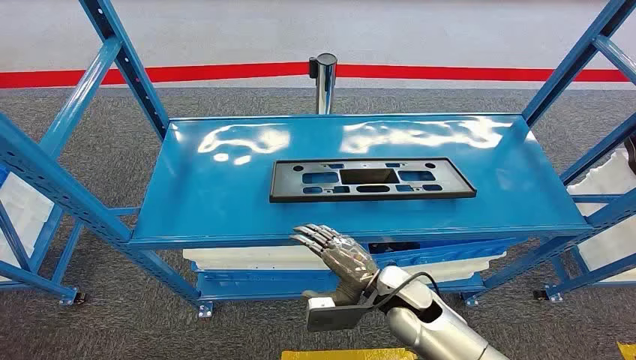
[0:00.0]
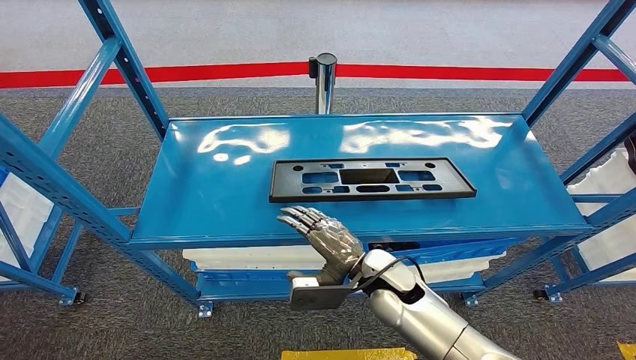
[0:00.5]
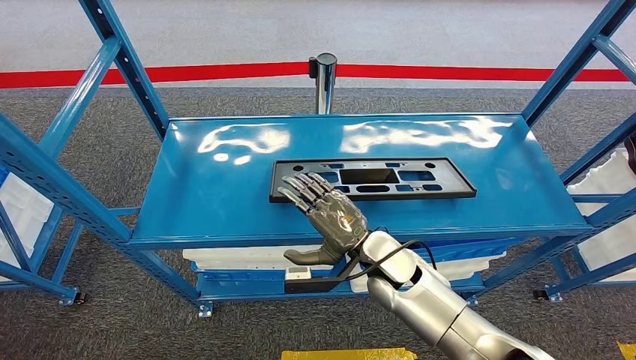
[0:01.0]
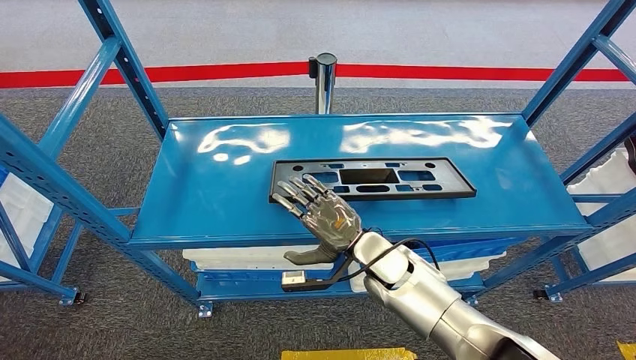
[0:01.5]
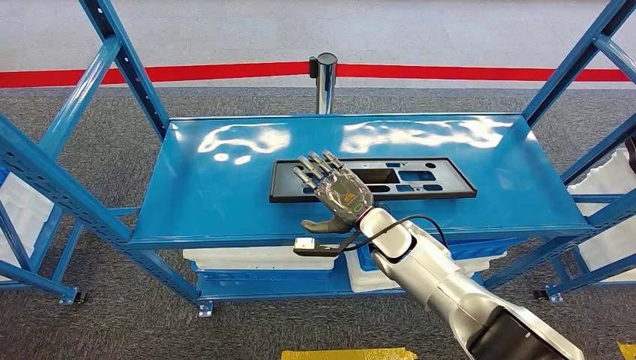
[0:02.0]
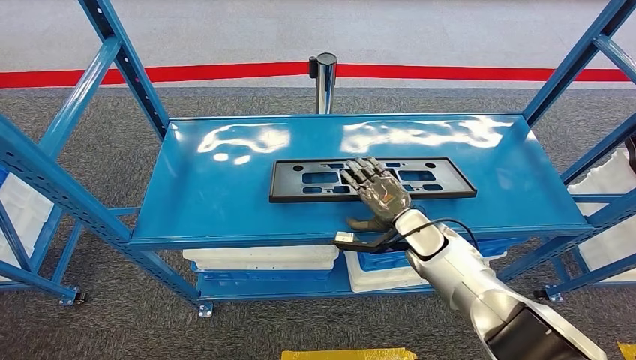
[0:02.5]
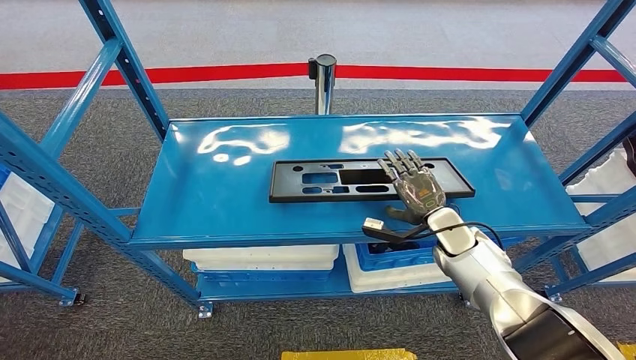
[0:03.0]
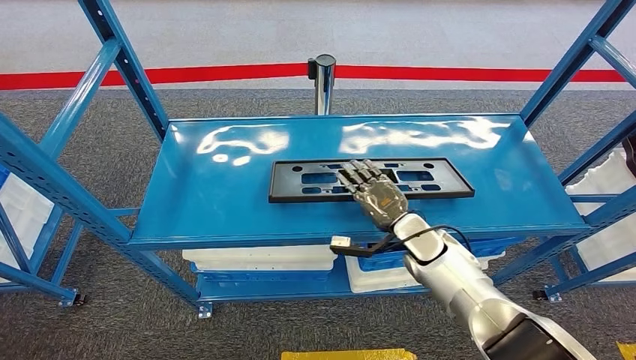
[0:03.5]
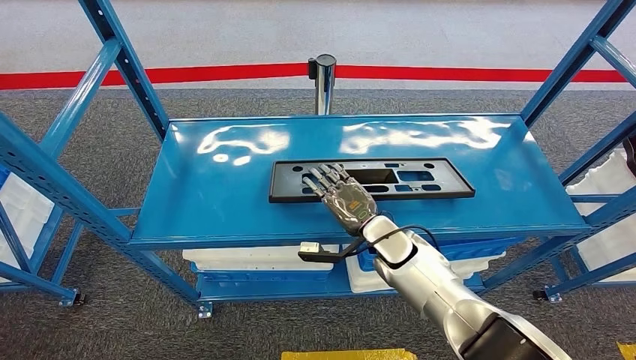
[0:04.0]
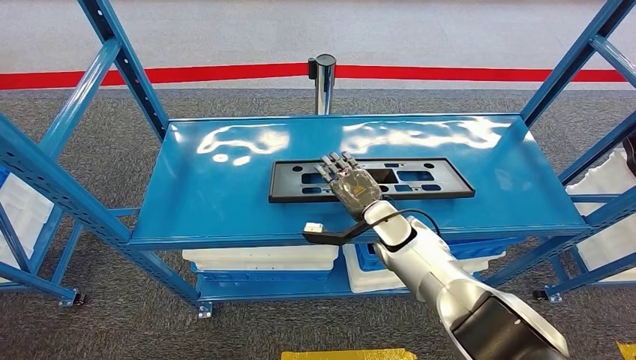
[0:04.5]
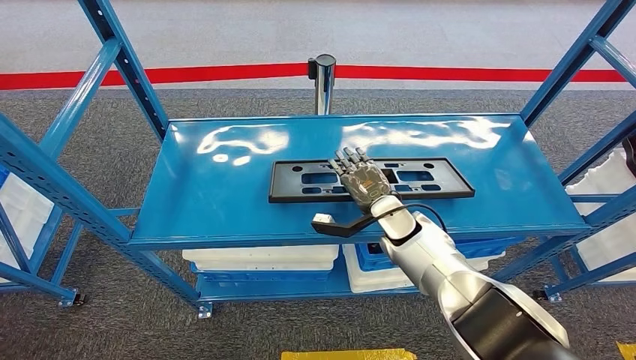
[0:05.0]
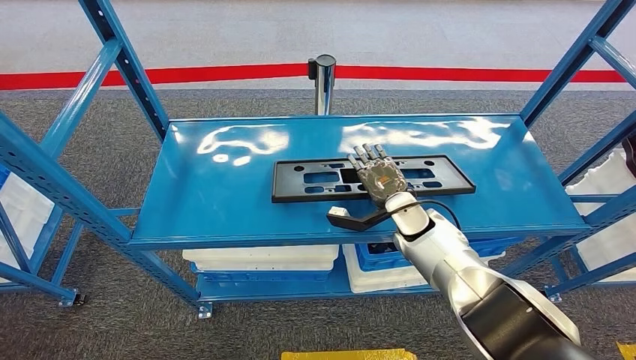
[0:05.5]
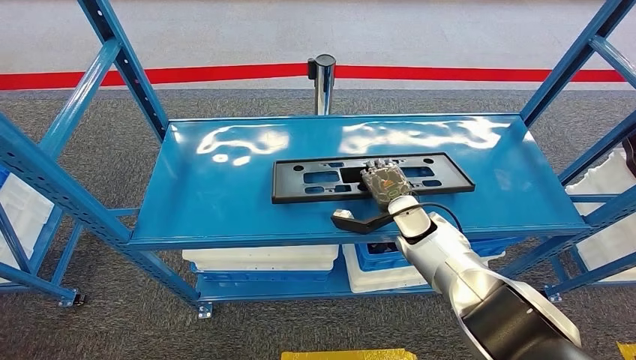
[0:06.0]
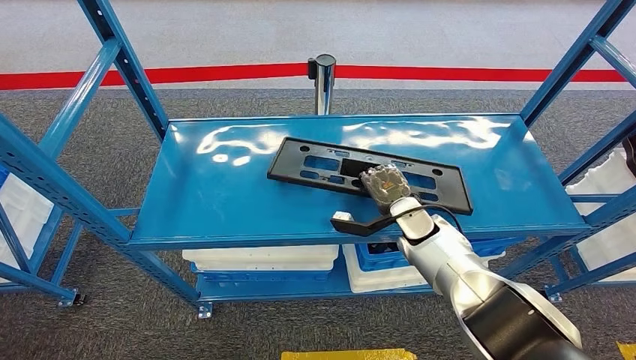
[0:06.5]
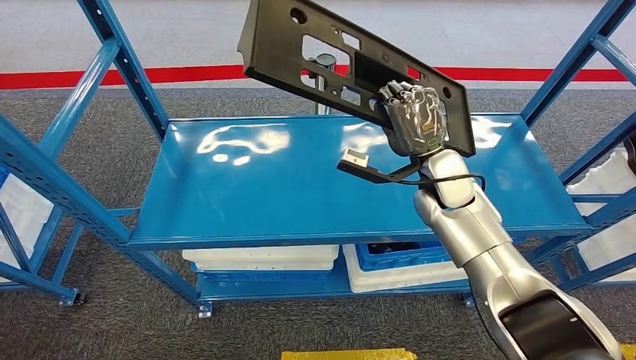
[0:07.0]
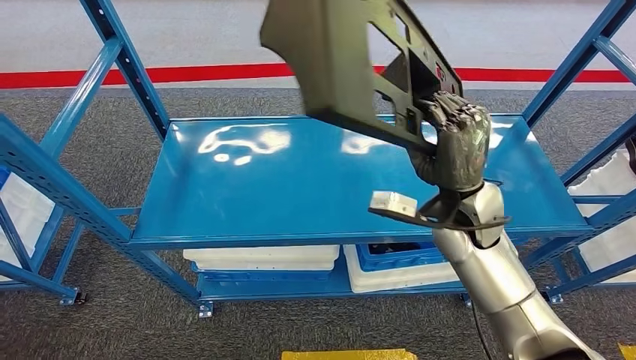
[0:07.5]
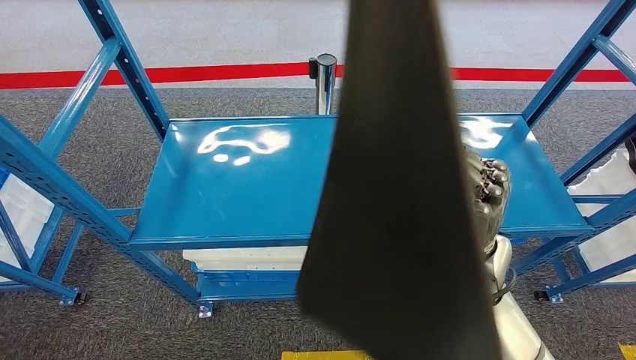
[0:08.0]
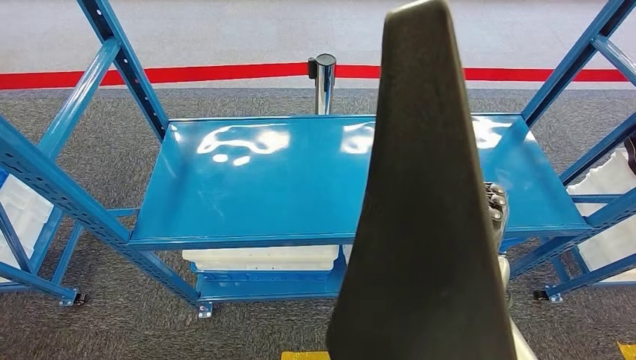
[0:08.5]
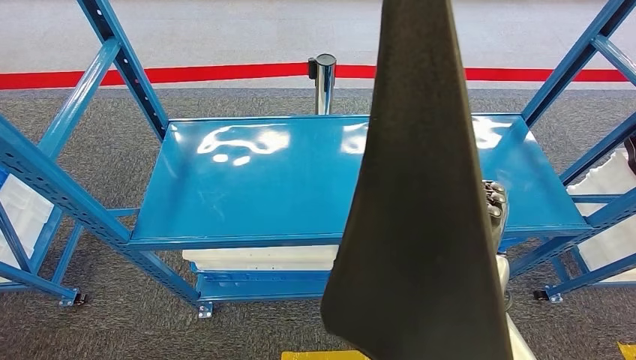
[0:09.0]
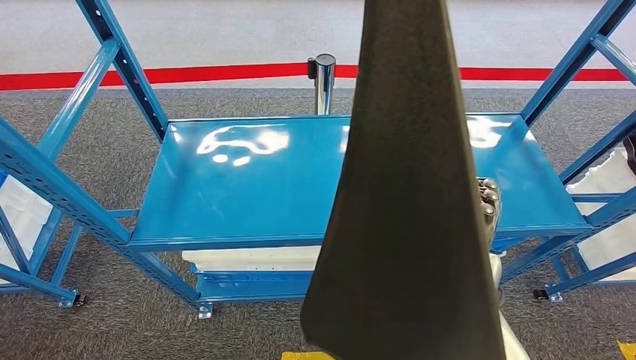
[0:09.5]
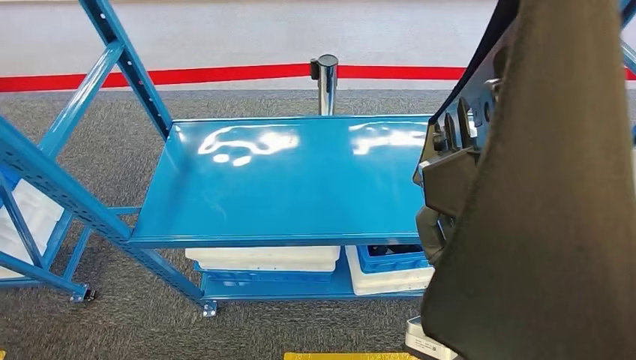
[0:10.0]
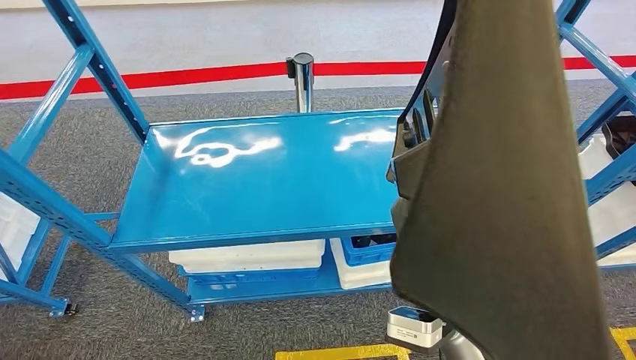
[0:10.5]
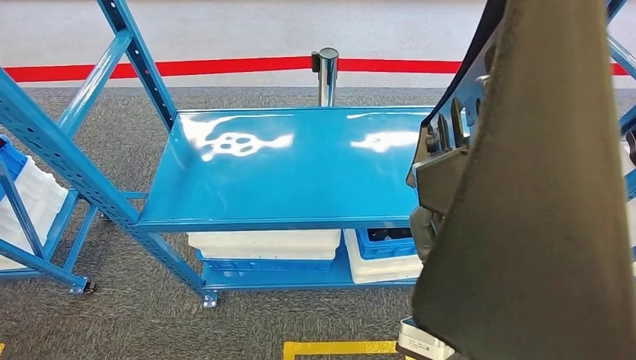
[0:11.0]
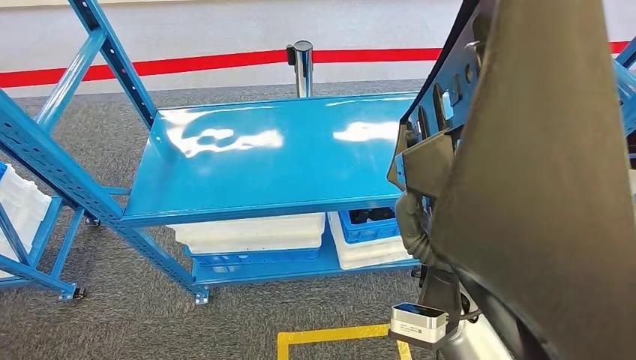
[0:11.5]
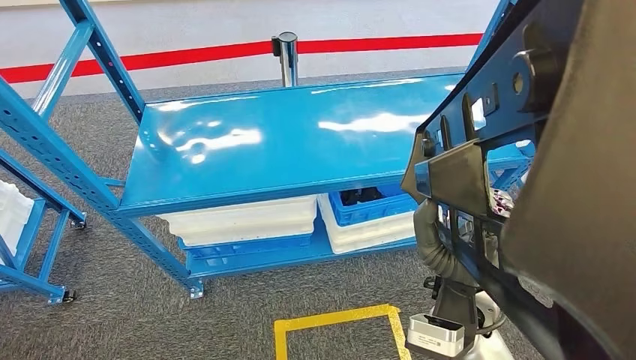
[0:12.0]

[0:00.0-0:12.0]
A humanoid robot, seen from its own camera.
Step, 0:00.0 to 0:09.5: Pick up the large material from the shelf.
0:02.0 to 0:04.0: The right hand reaches roughly 15 cm to the right, then returns.
0:04.0 to 0:06.0: The right hand shifts by approximately 5 cm.

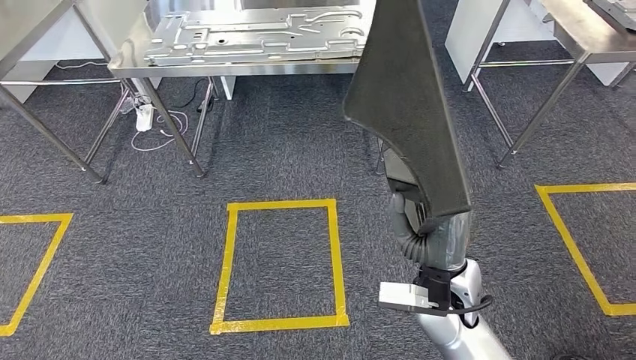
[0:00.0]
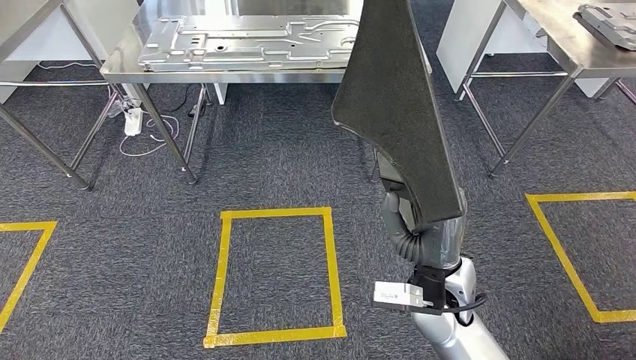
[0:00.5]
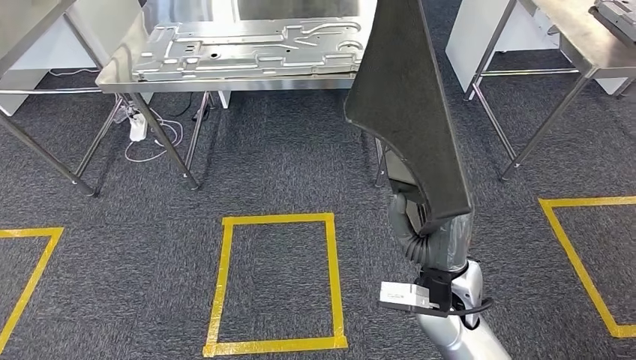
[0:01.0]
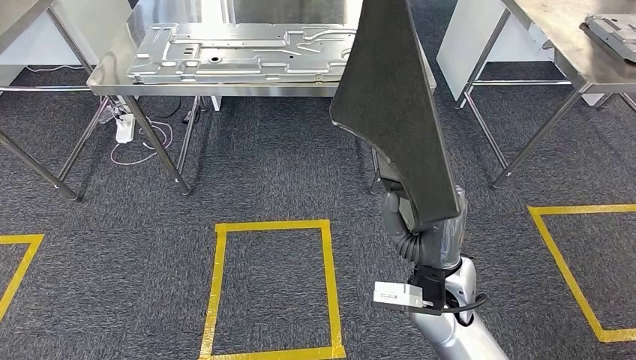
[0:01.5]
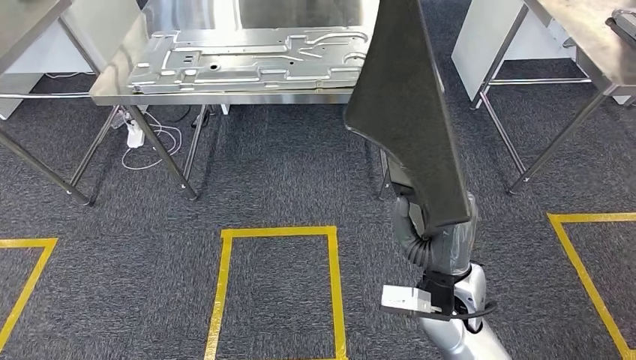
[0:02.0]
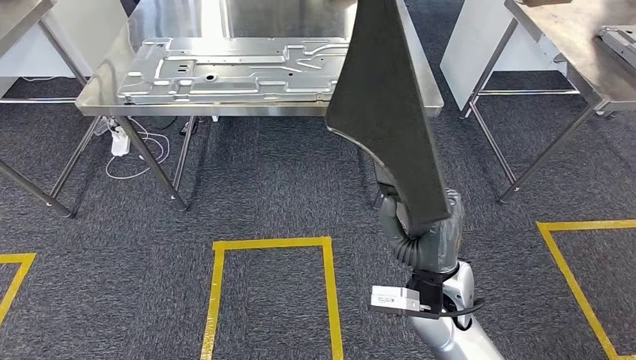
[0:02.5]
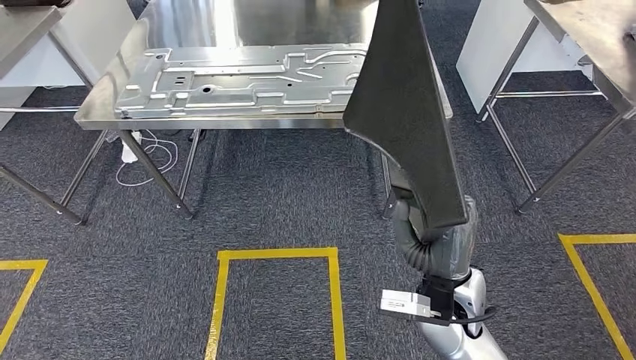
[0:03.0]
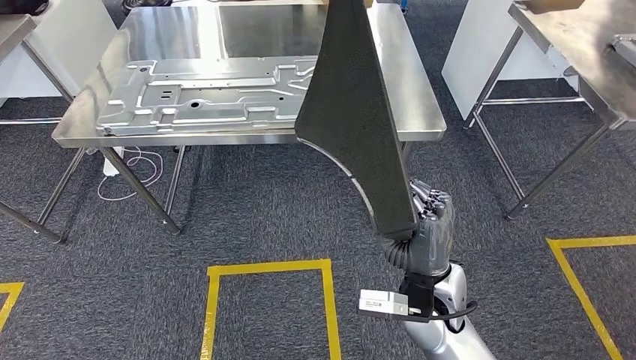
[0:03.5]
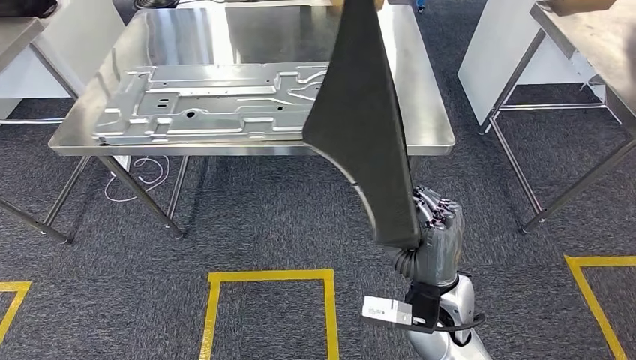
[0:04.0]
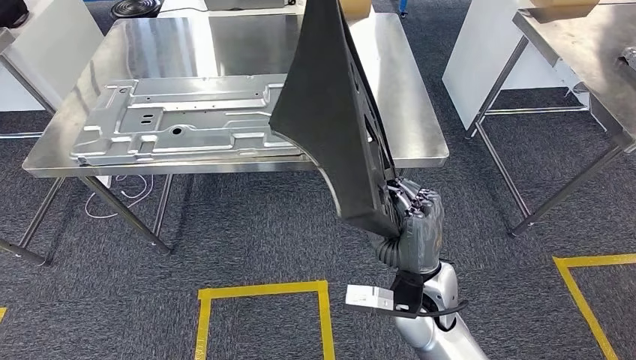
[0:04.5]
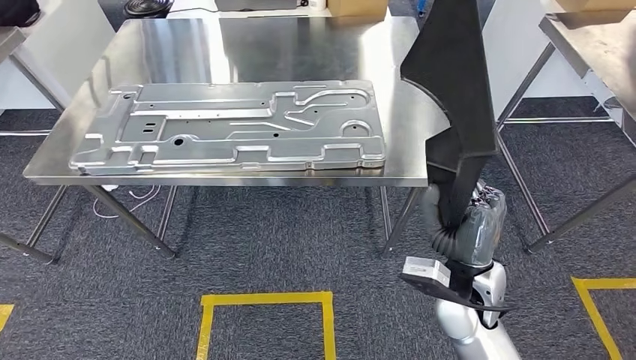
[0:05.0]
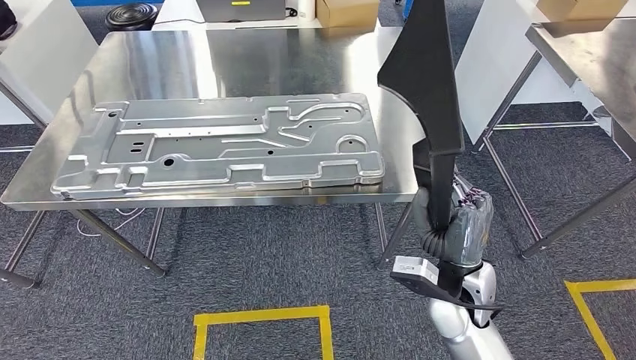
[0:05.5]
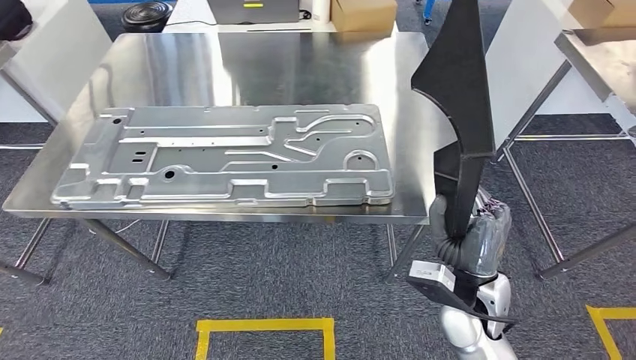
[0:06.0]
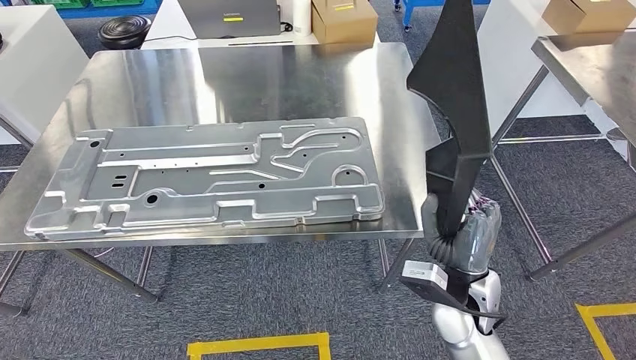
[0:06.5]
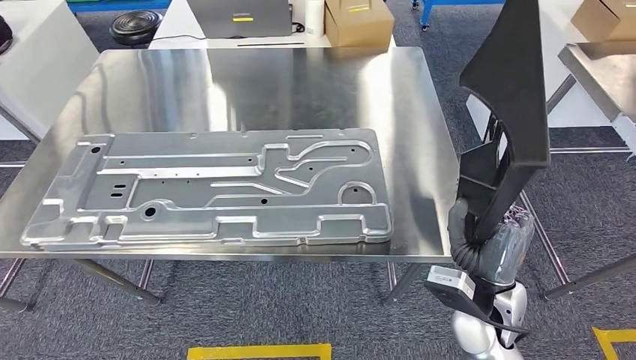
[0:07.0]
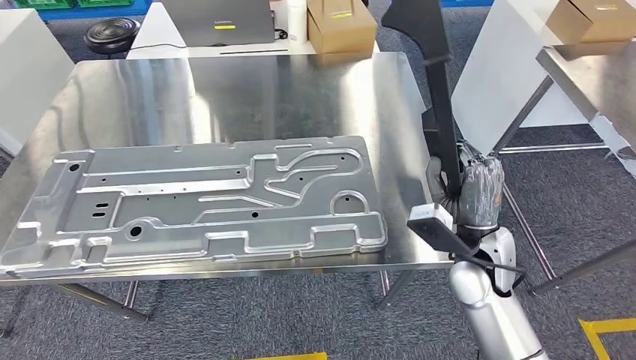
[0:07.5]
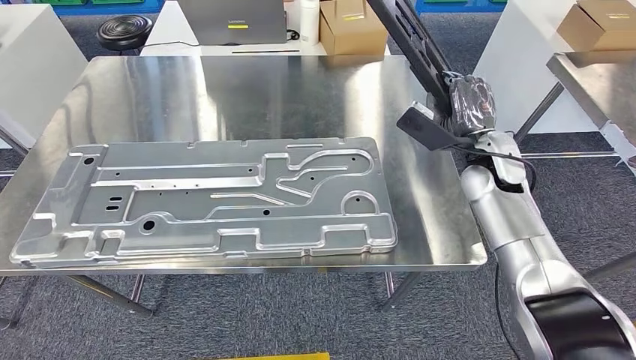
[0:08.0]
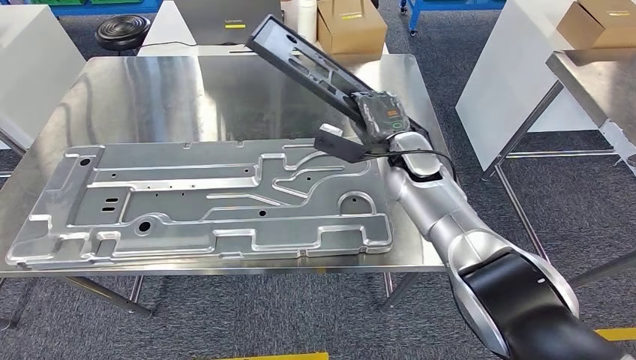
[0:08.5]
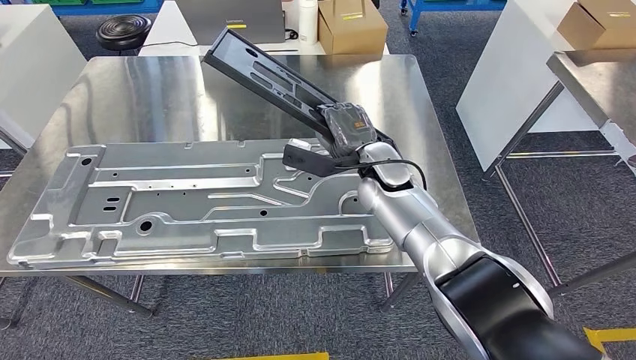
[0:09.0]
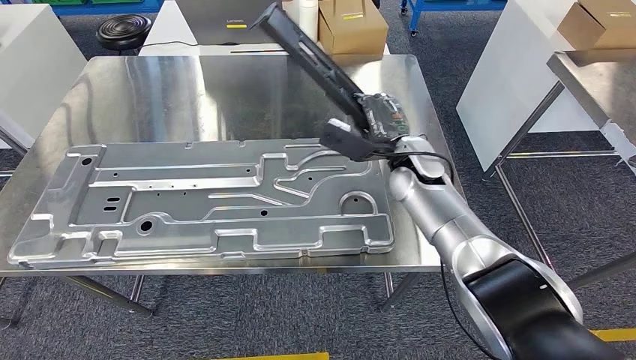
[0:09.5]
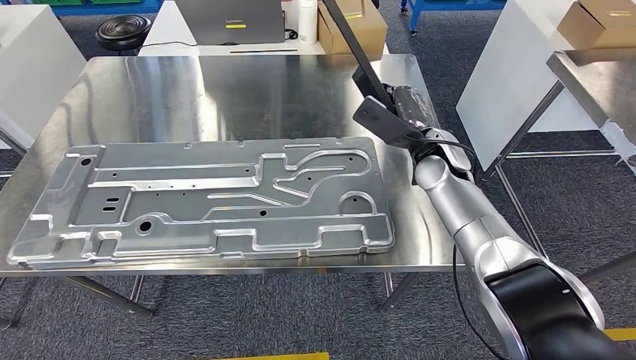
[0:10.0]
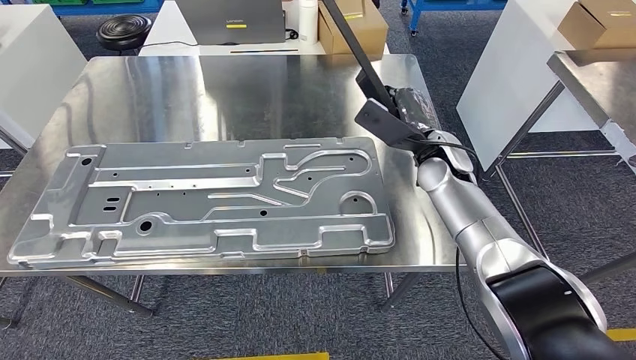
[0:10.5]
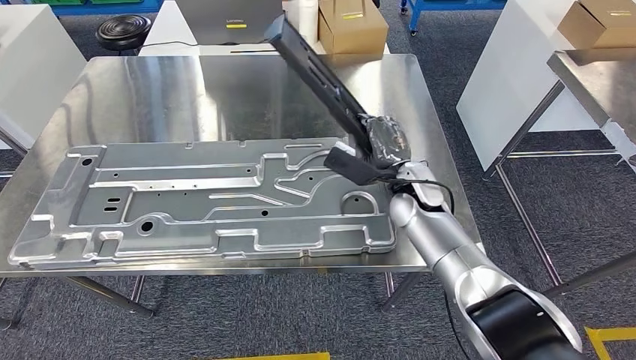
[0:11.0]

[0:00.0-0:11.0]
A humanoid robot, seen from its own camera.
Step, 0:00.0 to 0:06.5: Move the large material to the workbench.
0:09.0 to 0:11.0: The right hand heads to the right, covering some 5 cm.
